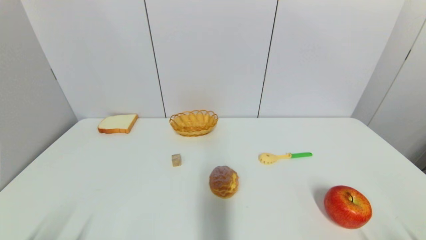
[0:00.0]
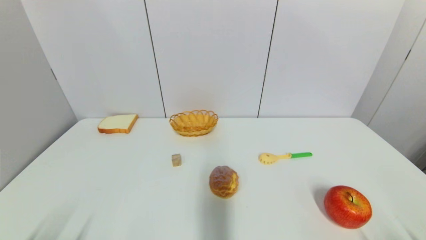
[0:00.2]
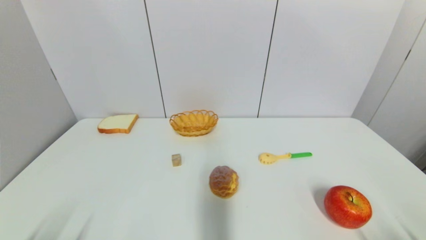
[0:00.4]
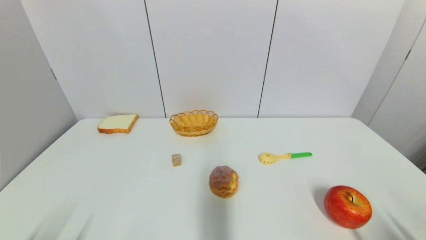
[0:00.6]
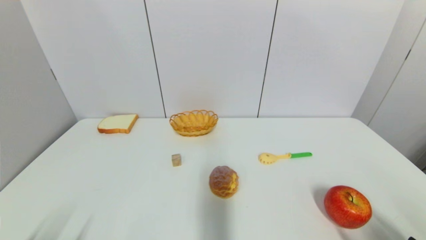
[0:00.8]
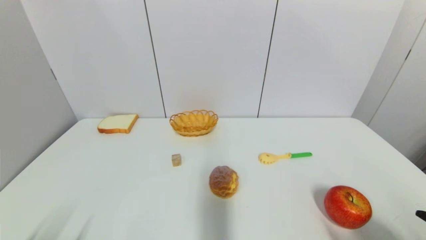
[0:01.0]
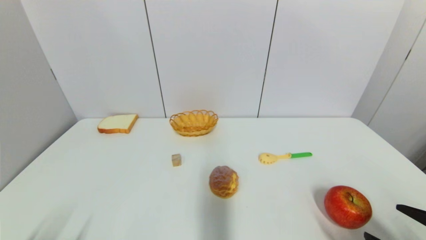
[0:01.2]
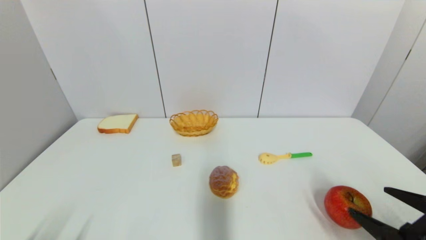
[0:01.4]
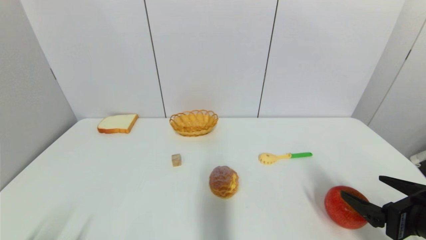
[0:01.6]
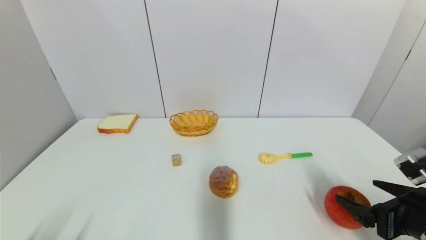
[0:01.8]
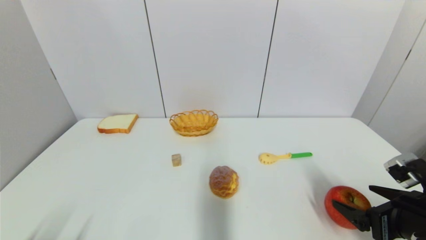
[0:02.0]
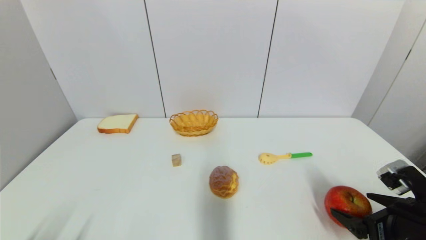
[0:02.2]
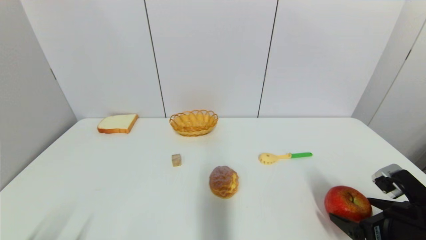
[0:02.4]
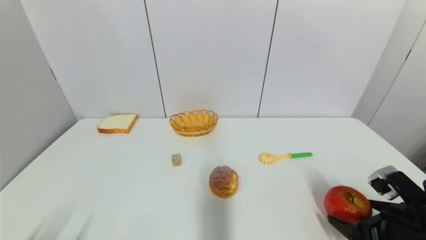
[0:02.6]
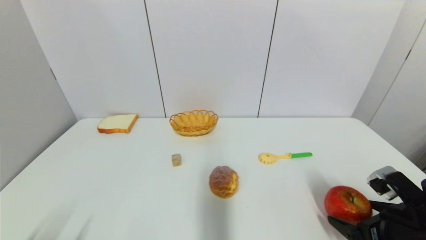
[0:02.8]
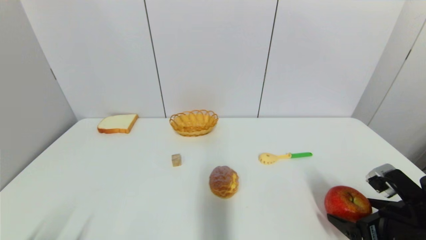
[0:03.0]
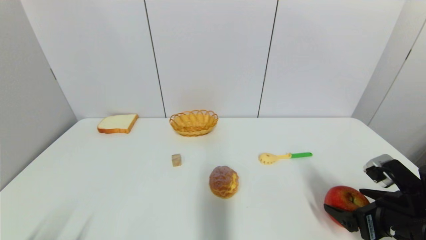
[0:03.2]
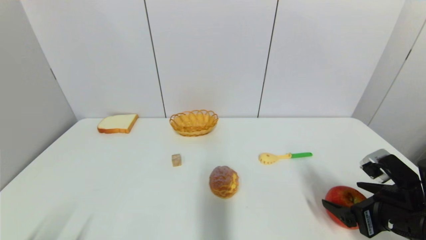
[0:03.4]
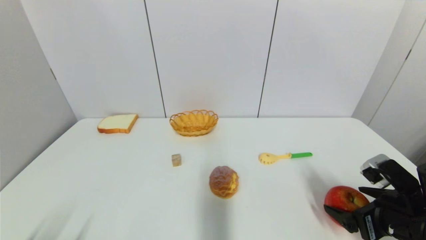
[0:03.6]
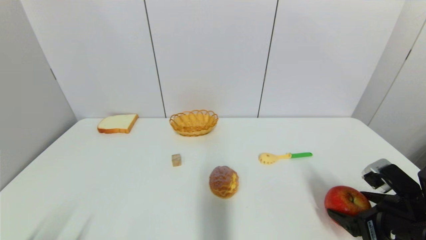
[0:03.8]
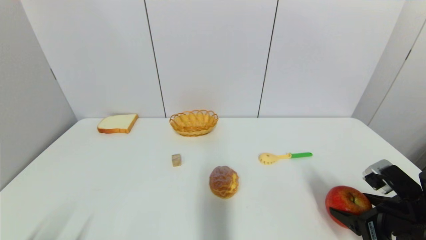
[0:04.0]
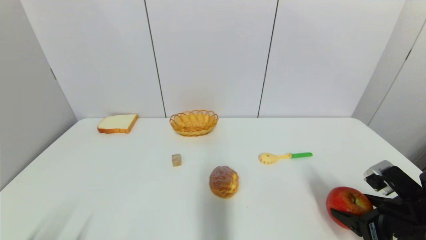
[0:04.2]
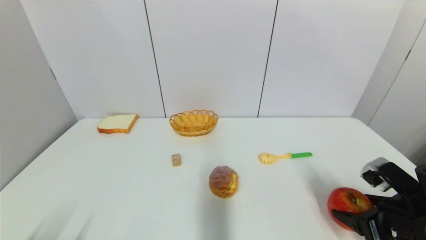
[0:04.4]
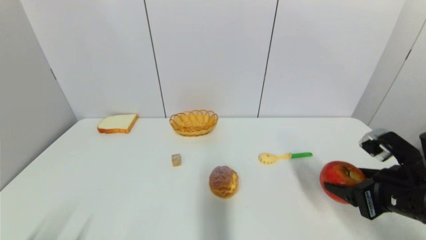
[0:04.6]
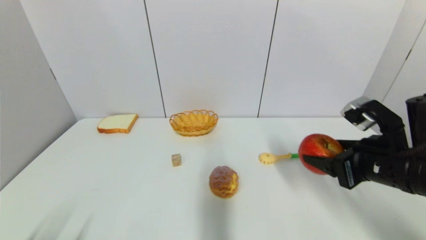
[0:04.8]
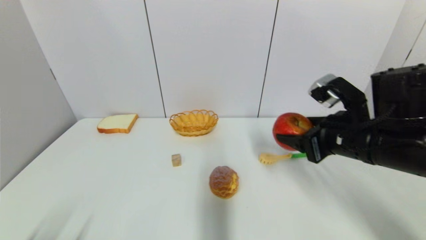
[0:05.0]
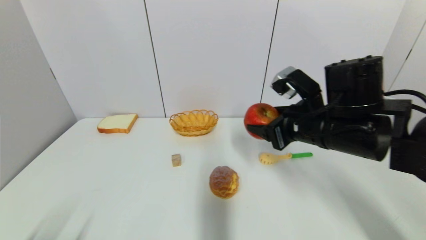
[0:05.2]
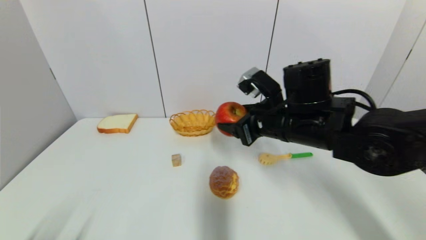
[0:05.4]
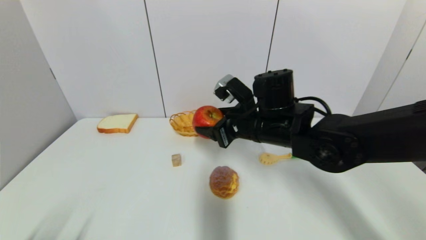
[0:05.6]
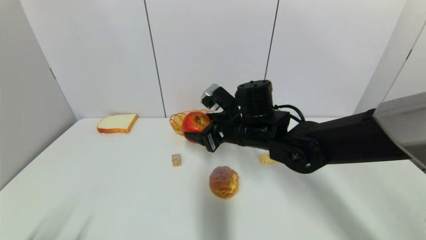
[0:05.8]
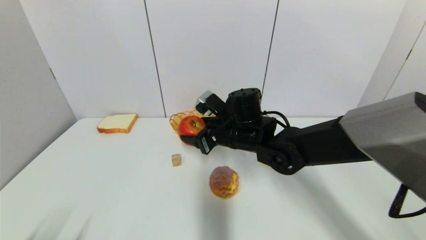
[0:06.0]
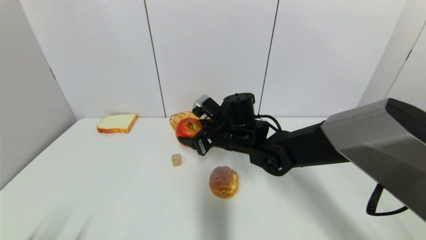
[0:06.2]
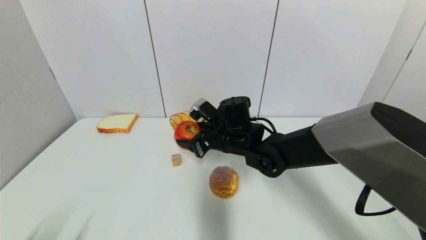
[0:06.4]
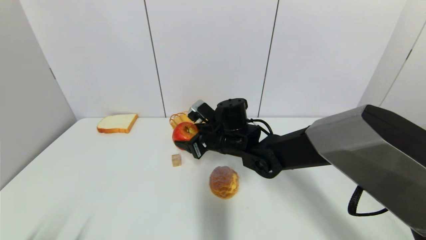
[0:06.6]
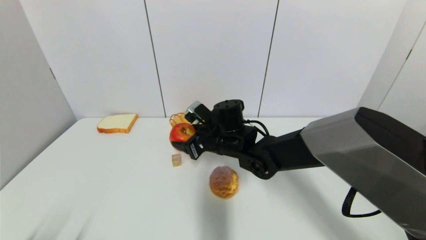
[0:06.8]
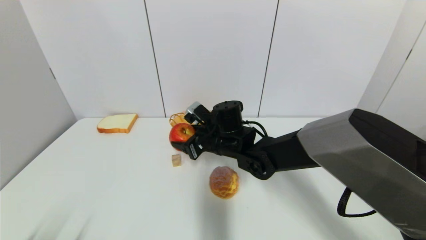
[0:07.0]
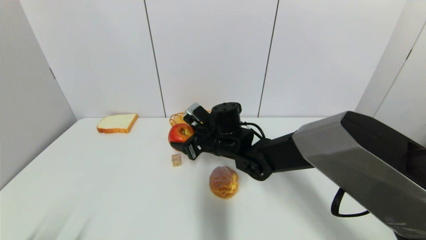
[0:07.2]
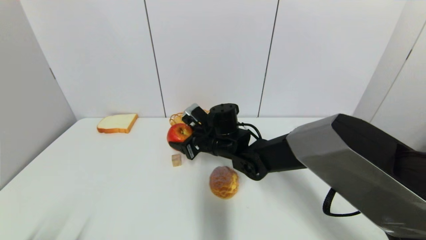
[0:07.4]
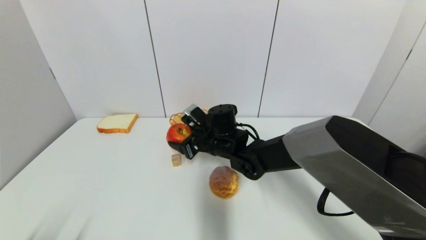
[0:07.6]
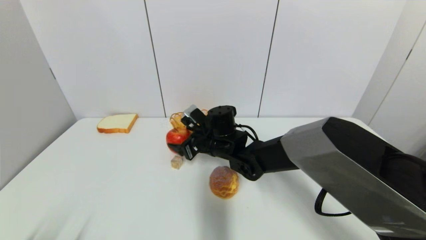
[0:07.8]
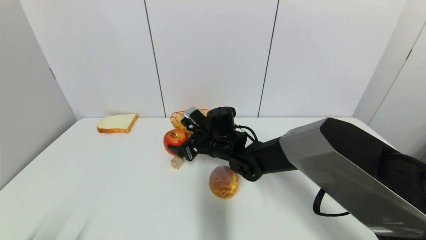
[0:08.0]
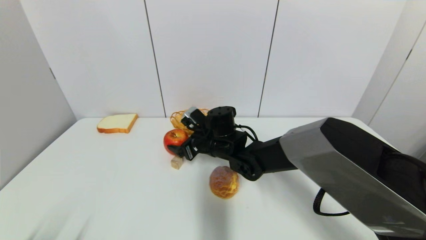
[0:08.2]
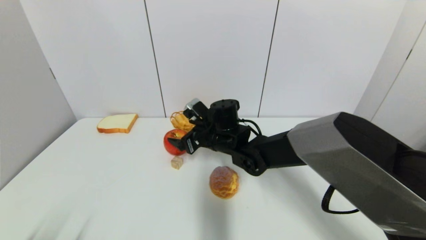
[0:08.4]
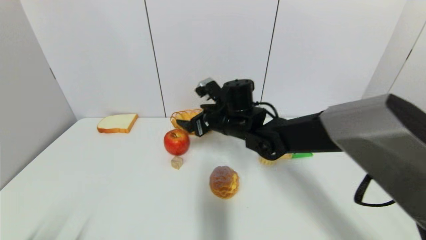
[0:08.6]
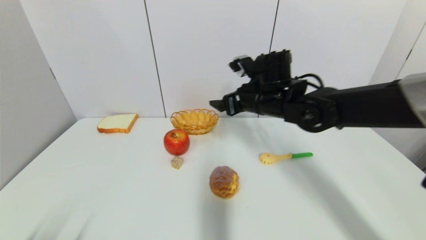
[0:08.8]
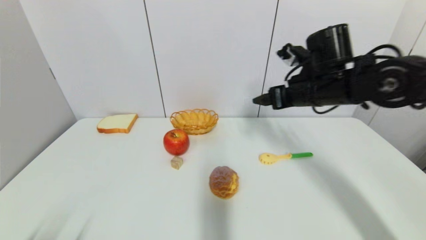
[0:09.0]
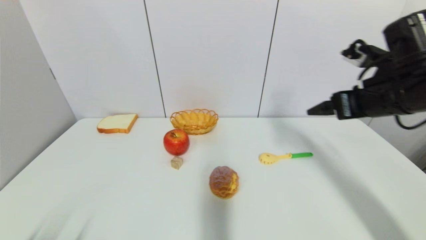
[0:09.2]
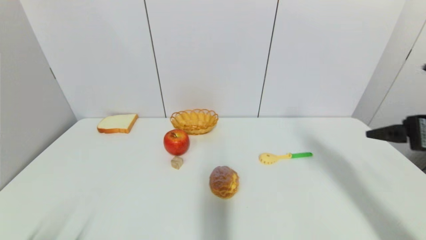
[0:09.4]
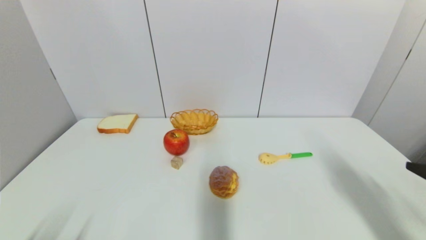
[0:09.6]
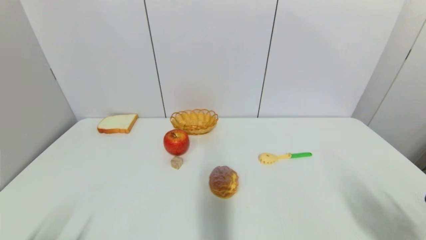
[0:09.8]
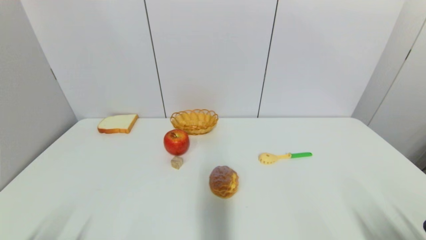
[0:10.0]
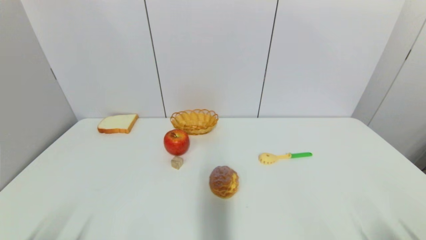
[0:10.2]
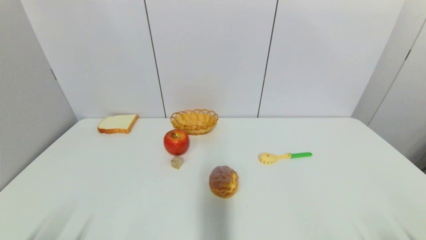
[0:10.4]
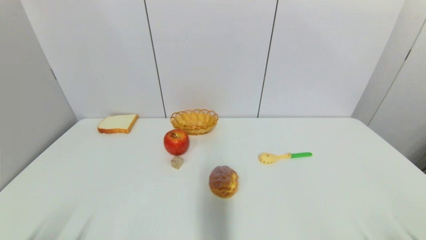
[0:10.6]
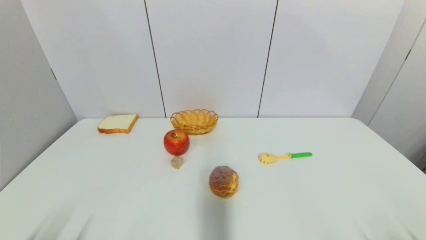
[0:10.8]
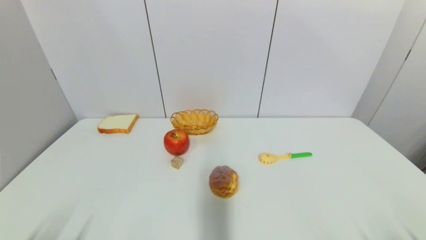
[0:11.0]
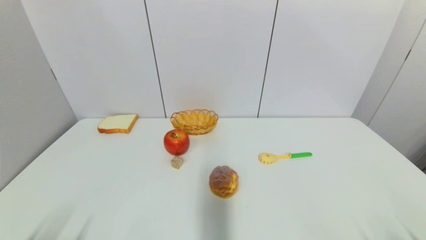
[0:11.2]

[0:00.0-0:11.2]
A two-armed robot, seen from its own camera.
Task of the whole recording: put the apple in the designated position.
Step, 0:01.0 to 0:04.0: Grasp the apple with right gripper.
Step, 0:04.2 to 0:08.6: Place the apple on the table with right gripper.
0:00.0 to 0:01.6: The right gripper heads forward and upward, covering approximately 15 cm.
0:01.6 to 0:03.2: There are only small adjustments of the grippers.
0:03.2 to 0:04.8: The right gripper heads upward, covering some 10 cm, and closes up.
0:04.8 to 0:06.4: The right gripper heads to the left and forward, covering approximately 25 cm.
0:06.4 to 0:08.0: The right gripper opens up.
0:08.0 to 0:09.6: The right gripper heads to the right and backward, covering about 40 cm.
0:09.6 to 0:11.2: The right gripper shifts some 20 cm downward and backward.
